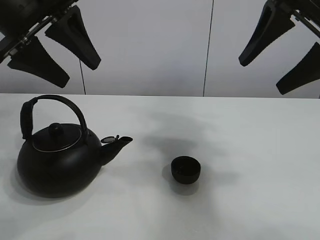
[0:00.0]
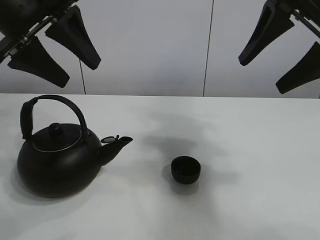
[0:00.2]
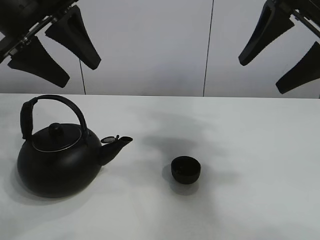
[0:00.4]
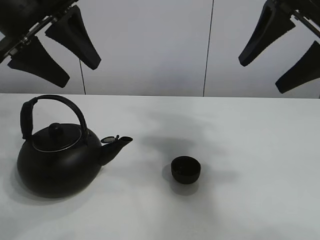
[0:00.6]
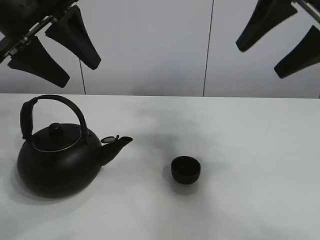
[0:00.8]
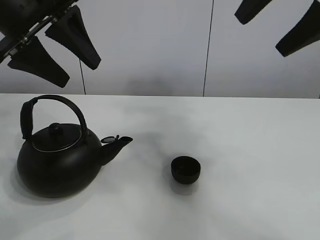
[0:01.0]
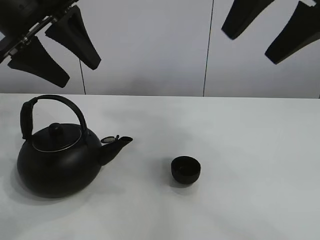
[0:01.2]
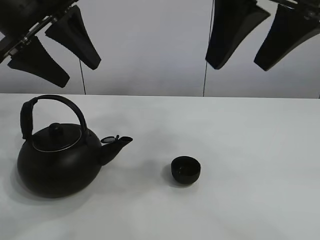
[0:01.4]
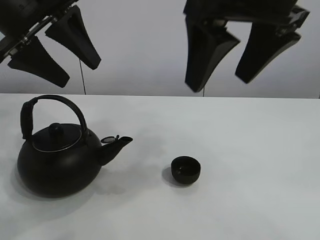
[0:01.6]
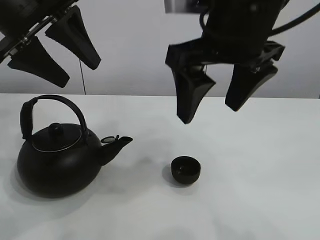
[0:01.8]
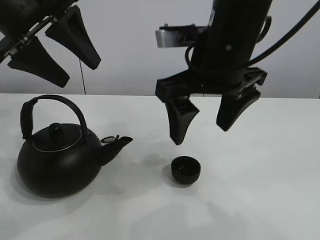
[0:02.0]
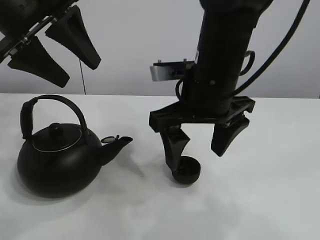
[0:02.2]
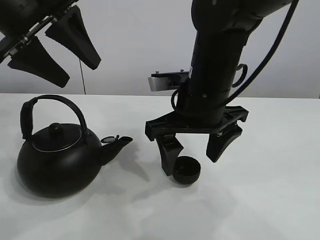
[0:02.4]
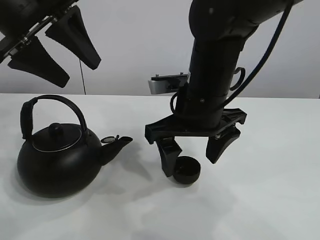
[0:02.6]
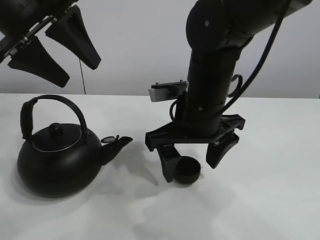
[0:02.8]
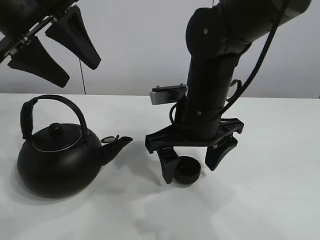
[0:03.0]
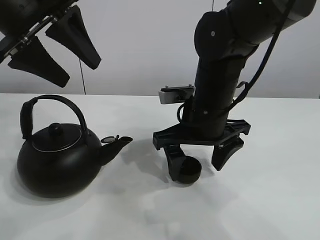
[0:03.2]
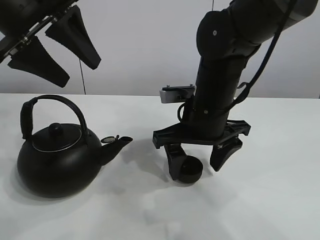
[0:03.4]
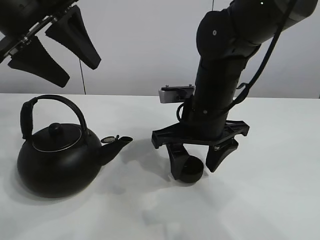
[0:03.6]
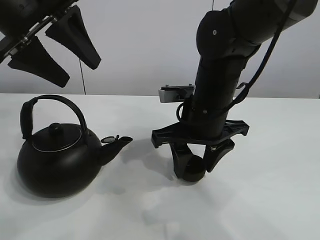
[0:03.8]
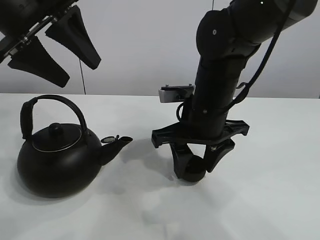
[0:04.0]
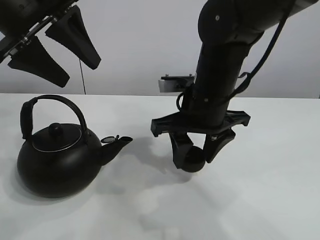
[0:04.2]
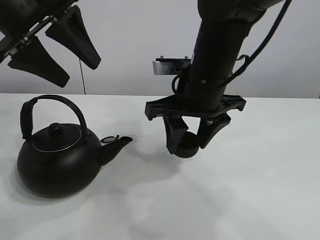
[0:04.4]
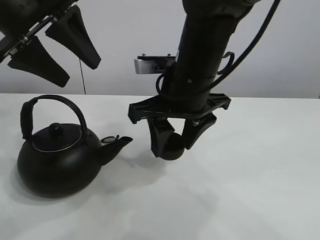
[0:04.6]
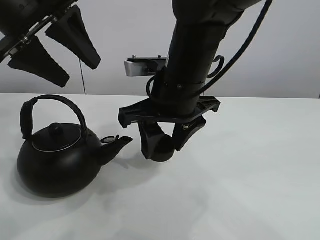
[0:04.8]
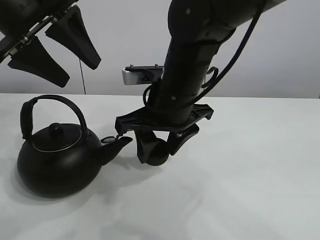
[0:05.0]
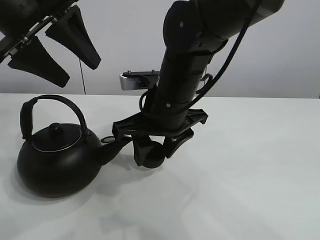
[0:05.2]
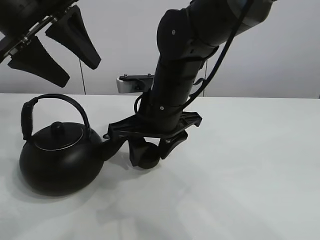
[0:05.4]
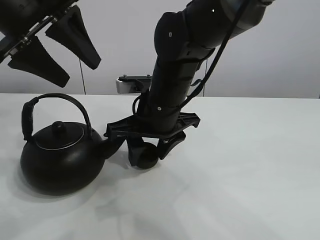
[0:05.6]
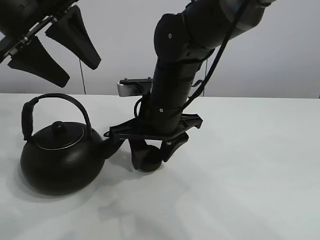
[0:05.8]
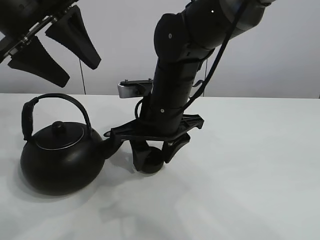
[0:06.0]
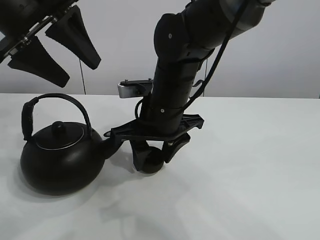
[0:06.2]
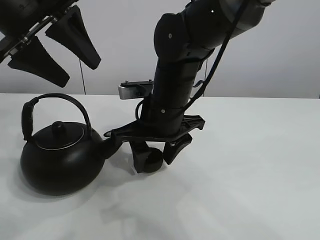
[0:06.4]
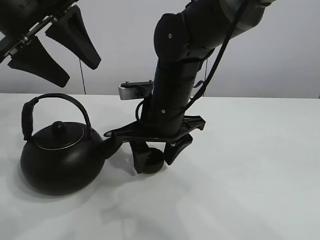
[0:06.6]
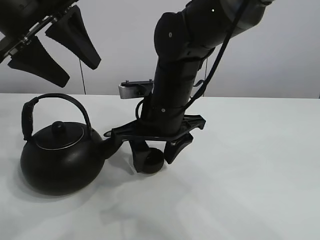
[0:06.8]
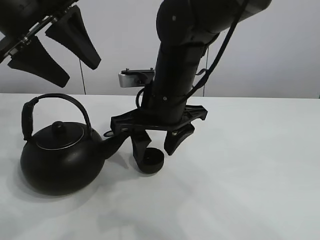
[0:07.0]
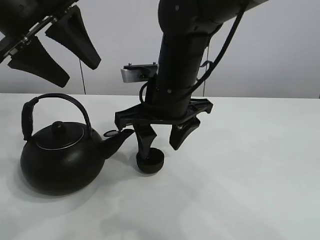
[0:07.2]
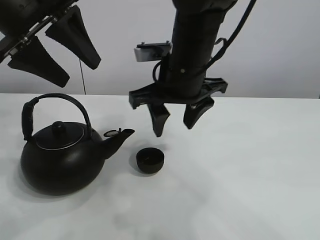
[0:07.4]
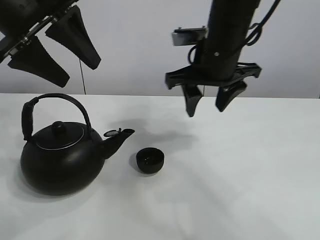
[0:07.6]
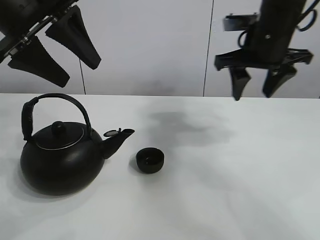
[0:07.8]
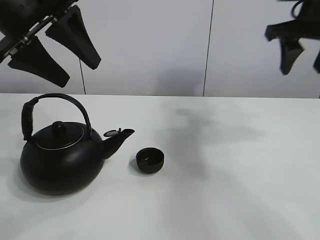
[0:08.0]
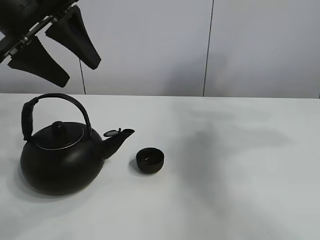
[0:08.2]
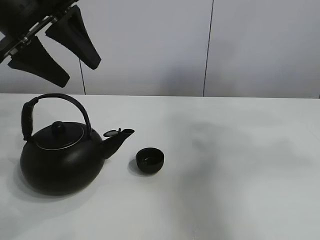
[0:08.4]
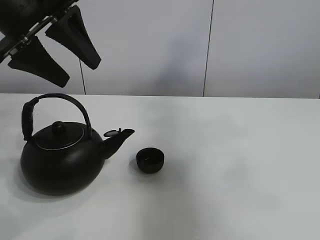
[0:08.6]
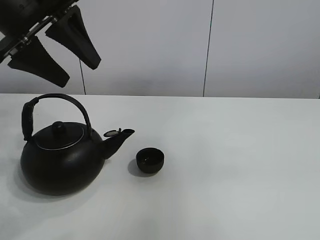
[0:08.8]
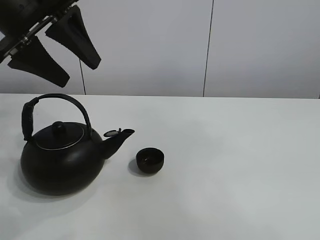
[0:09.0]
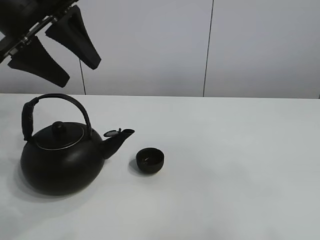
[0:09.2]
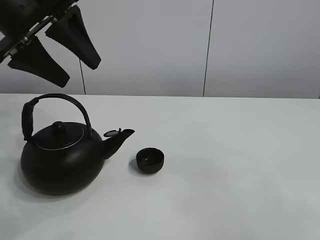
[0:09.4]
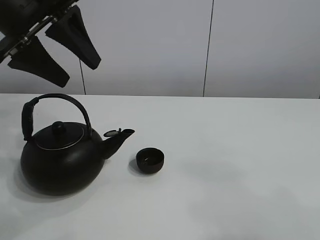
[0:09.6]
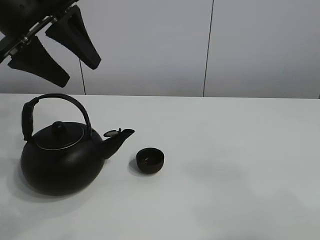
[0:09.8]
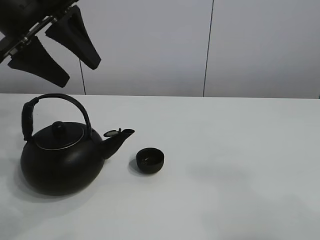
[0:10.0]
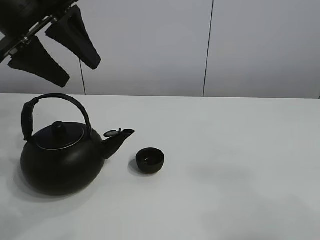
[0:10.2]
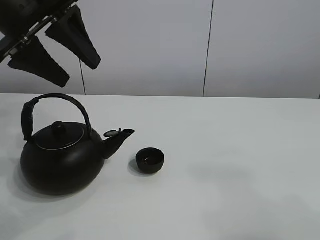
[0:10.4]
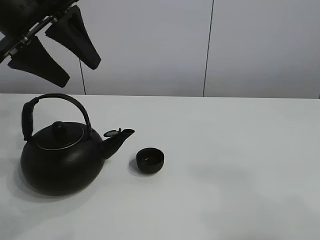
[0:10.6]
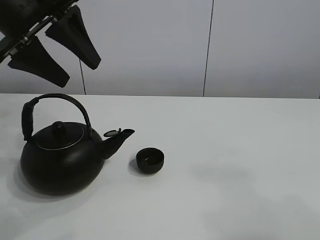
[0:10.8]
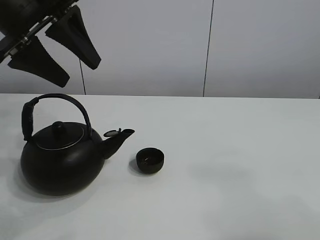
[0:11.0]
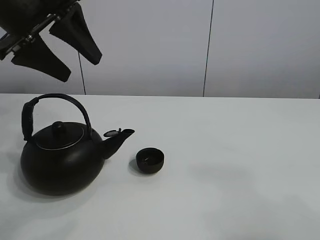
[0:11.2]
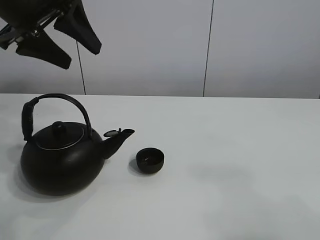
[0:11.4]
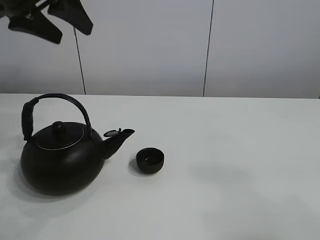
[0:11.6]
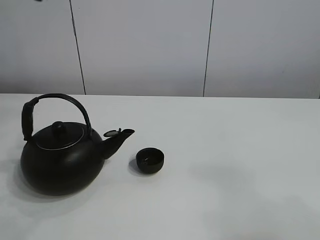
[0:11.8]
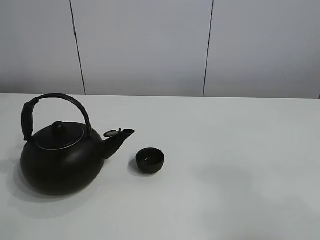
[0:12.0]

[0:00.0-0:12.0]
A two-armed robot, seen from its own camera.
Task of the whole recording: pour tea into the teacup.
Step, 0:00.0 to 0:04.0: Pick up the teacup with the right gripper.
Step, 0:04.2 to 0:06.8: Place the teacup in the center of view with the right gripper.
0:01.6 to 0:03.0: The right gripper shifts about 20 cm downward and forward.
0:03.0 to 0:04.4: The right gripper closes up.
0:04.4 to 0:06.0: The right gripper is displaced to the left by roughly 5 cm.
0:06.0 to 0:07.6: The right gripper heads to the right and upward, covering approximately 10 cm.
0:07.6 to 0:09.0: The right gripper shifts some 50 cm backward and upward.
0:09.0 to 0:10.4: The right gripper moves downward, some 20 cm.
0:10.4 to 0:12.0: The left gripper shifts roughly 10 cm upward.

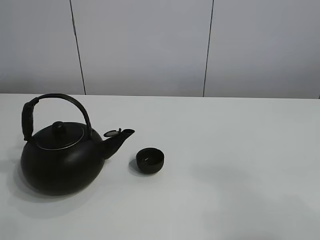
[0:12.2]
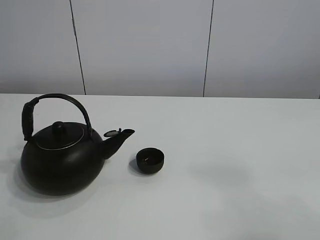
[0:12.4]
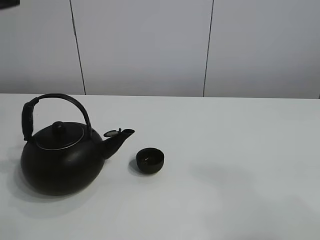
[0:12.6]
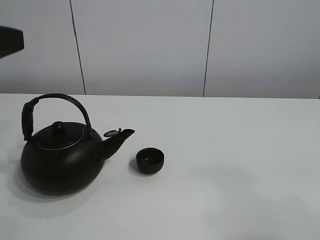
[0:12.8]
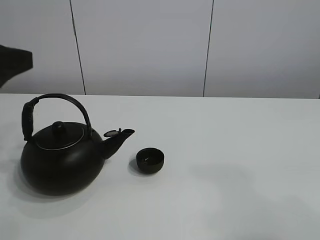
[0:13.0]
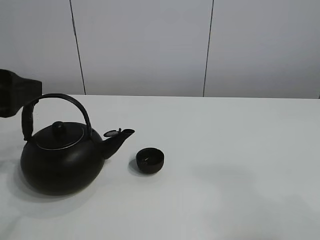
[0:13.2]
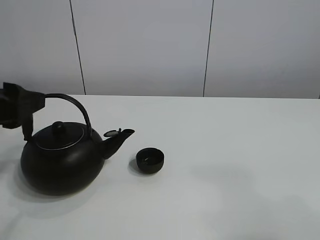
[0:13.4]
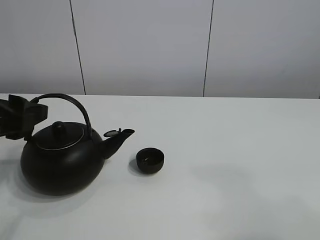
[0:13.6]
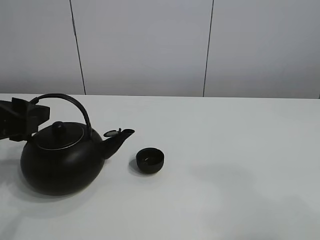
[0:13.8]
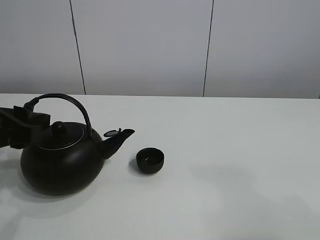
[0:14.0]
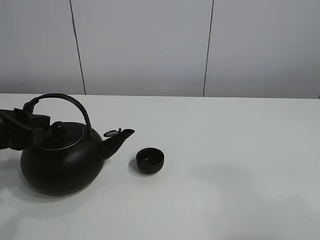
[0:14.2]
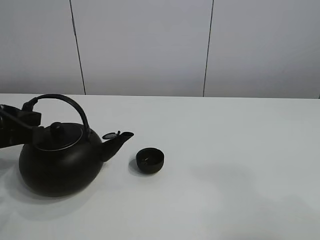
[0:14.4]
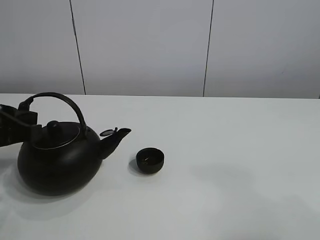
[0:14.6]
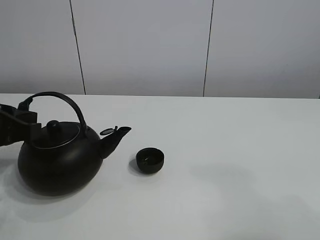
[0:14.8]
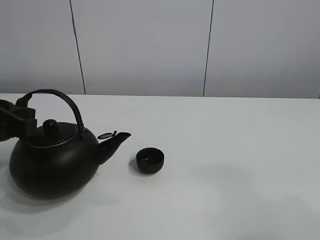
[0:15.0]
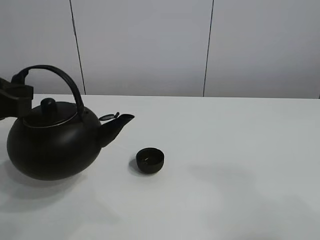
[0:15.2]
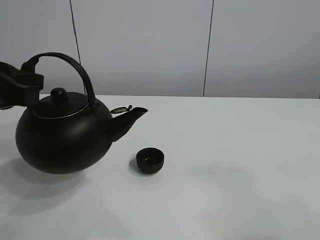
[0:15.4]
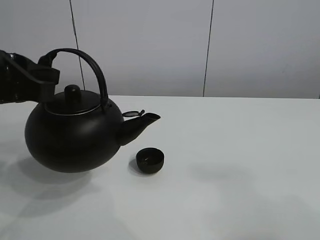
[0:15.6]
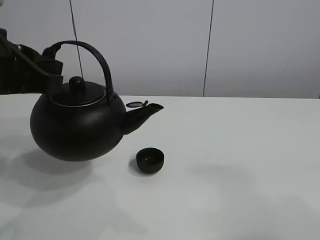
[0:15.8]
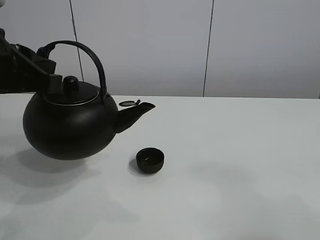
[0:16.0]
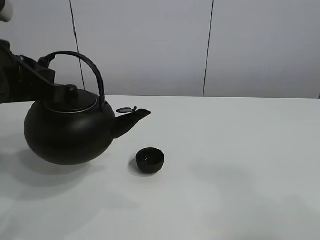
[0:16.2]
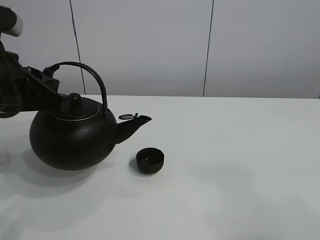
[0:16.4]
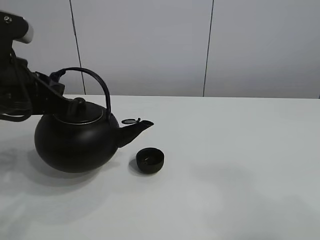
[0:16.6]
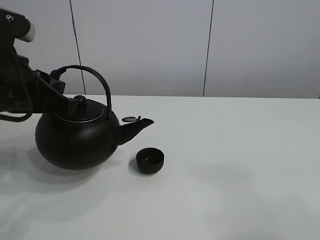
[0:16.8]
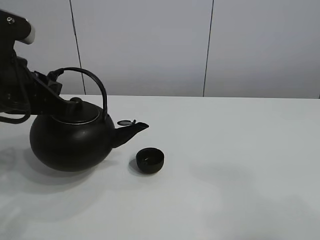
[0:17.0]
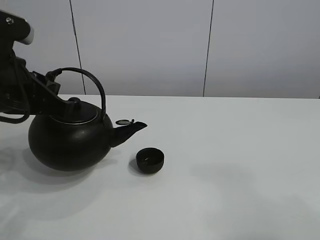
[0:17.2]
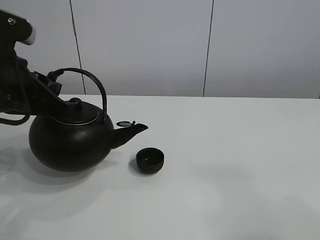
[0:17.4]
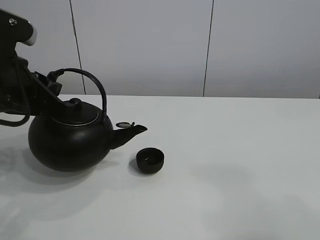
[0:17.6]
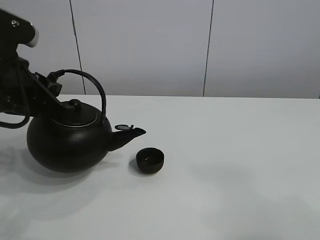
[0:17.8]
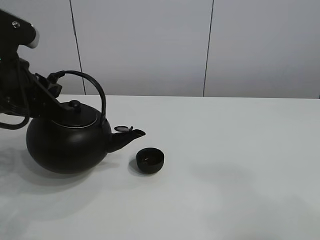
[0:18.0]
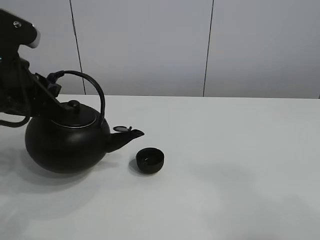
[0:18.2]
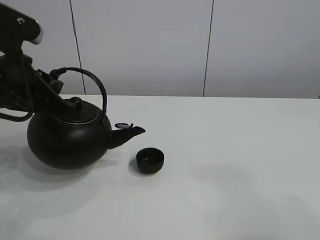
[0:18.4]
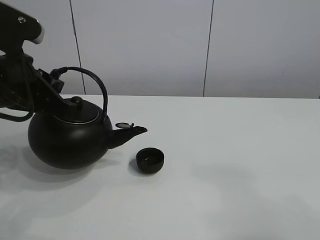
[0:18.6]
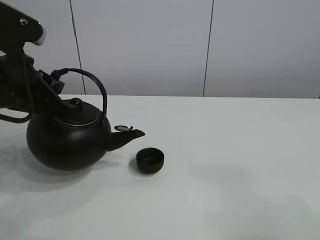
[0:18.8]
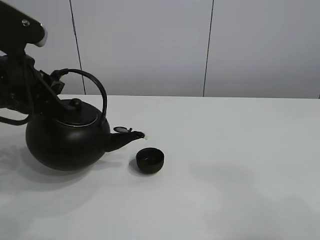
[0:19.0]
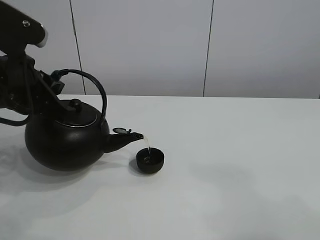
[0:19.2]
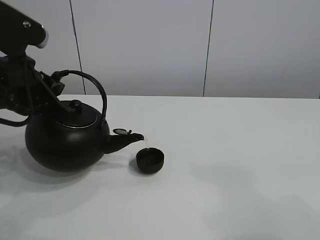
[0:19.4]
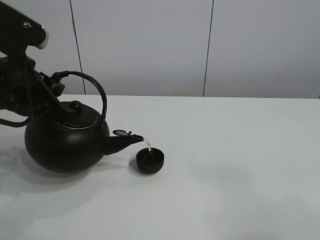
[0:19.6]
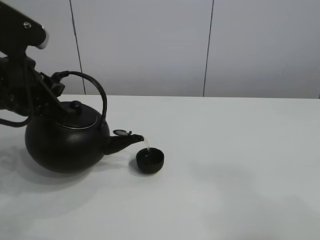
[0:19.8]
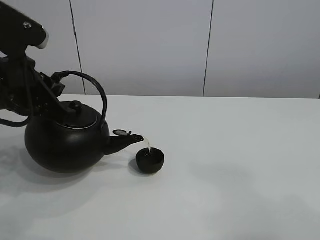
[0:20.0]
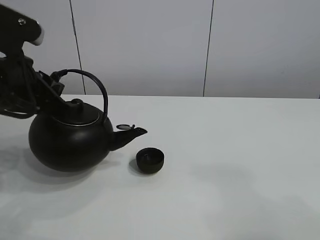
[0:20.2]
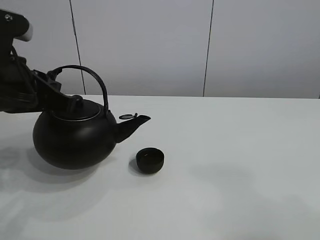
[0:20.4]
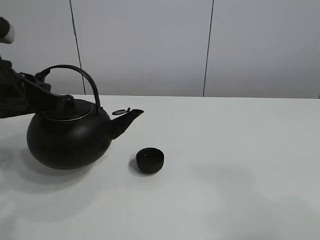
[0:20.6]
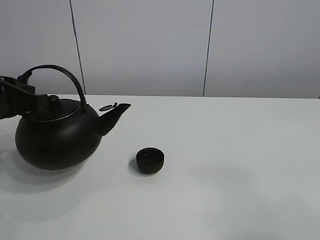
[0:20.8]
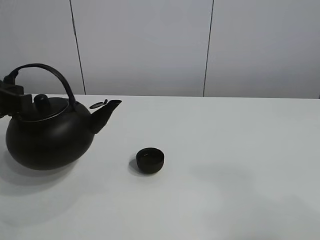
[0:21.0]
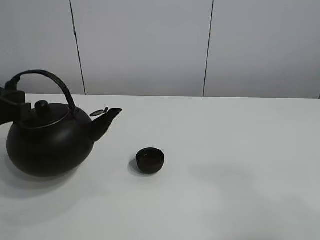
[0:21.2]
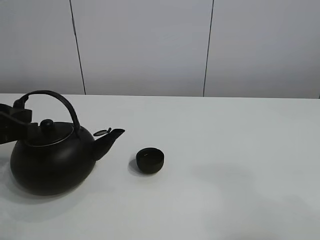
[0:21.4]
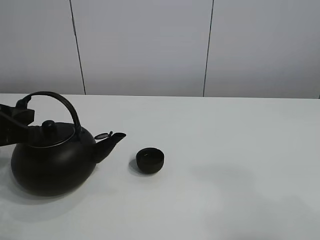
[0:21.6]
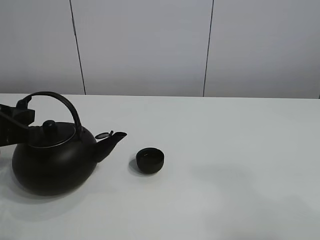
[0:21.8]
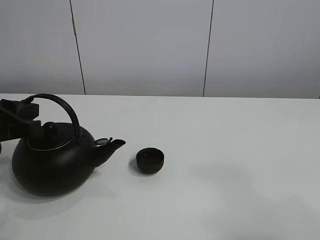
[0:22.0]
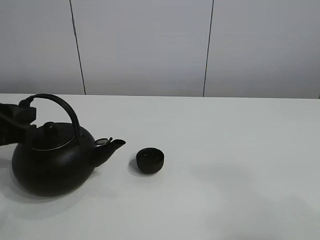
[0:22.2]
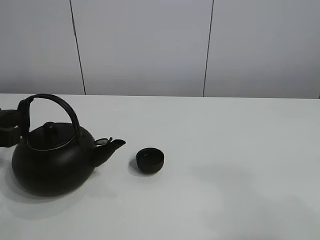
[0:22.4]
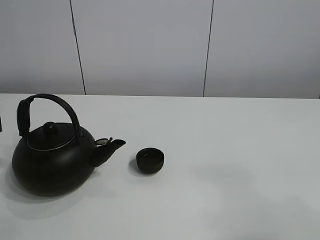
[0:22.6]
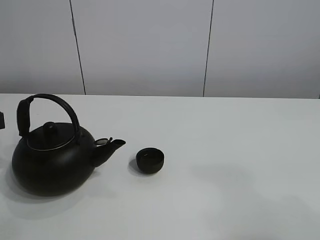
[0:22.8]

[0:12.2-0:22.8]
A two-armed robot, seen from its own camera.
Task of the whole recording: pour tea into the teacup.
Step, 0:12.2 to 0:14.6: Pick up the teapot with the left gripper.
Step, 0:15.0 to 0:20.2: Pour tea into the teacup with the left gripper.
0:12.2 to 0:13.8: The left gripper travels downward by approximately 25 cm.
0:13.8 to 0:15.2: The left gripper closes.
0:15.2 to 0:16.8: The left gripper changes place by approximately 5 cm.
0:16.8 to 0:19.8: The grippers move only a little.
0:19.8 to 0:21.2: The left gripper heads to the left, covering about 5 cm.
0:21.2 to 0:22.8: The left gripper opens.
